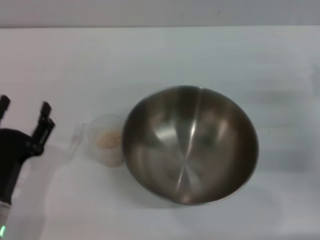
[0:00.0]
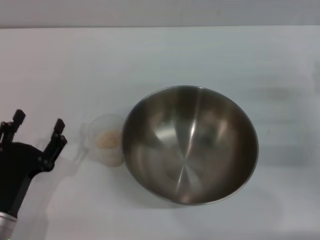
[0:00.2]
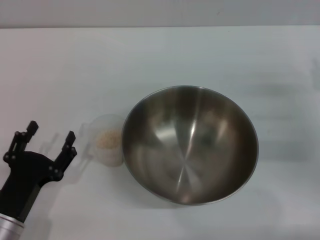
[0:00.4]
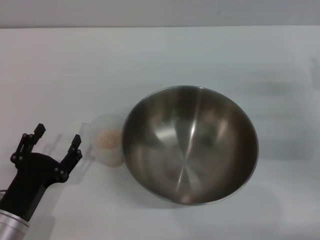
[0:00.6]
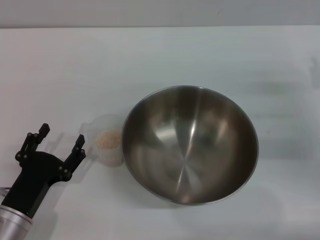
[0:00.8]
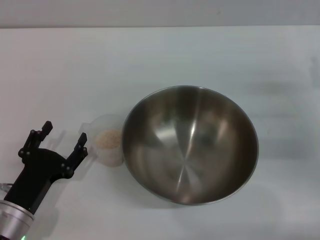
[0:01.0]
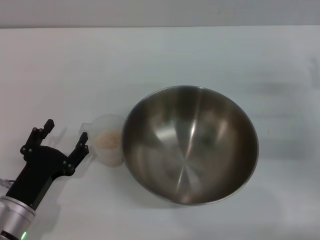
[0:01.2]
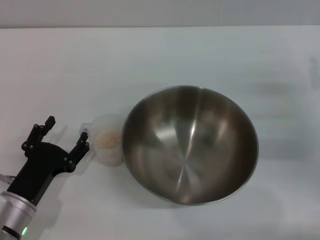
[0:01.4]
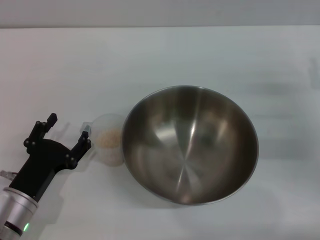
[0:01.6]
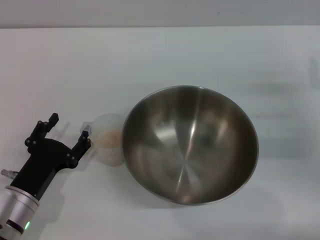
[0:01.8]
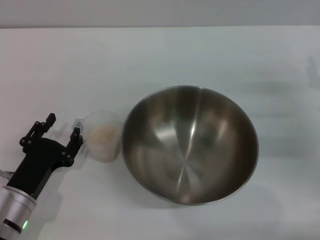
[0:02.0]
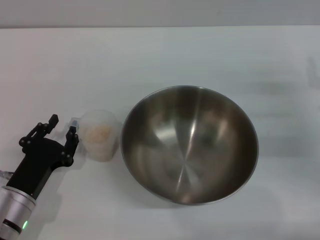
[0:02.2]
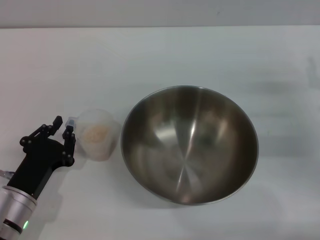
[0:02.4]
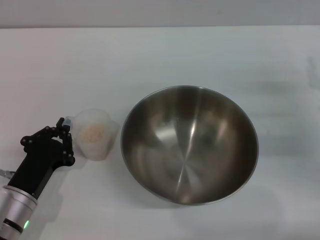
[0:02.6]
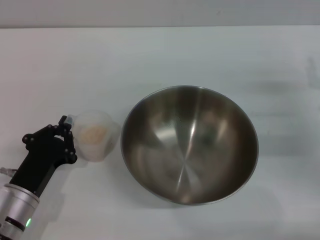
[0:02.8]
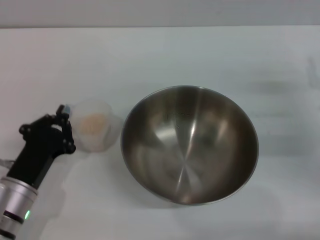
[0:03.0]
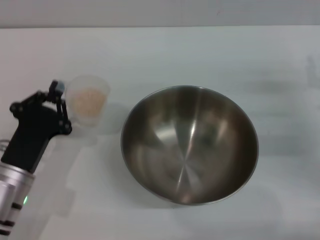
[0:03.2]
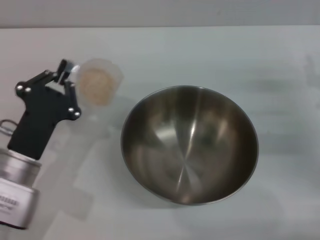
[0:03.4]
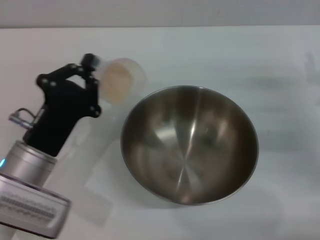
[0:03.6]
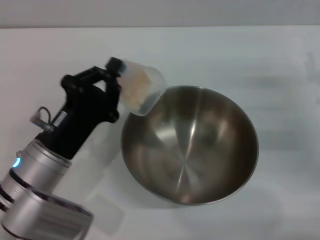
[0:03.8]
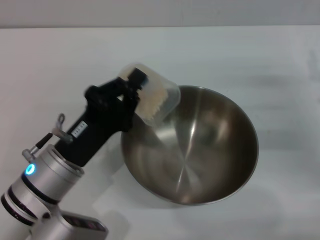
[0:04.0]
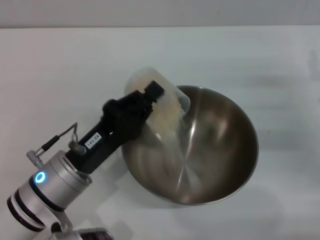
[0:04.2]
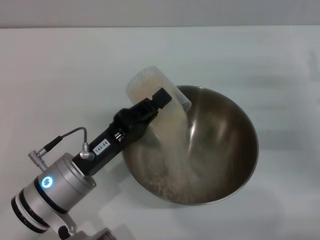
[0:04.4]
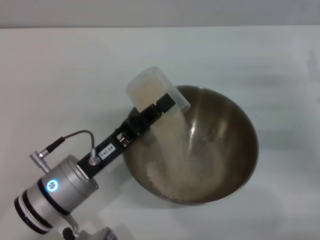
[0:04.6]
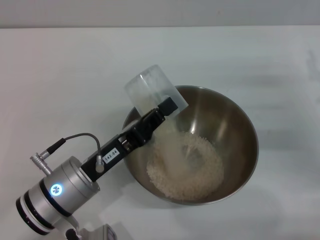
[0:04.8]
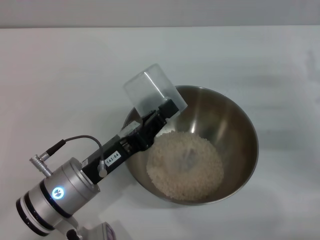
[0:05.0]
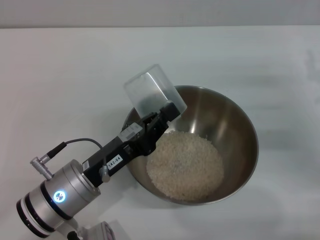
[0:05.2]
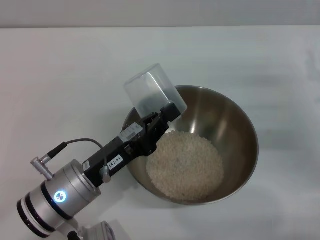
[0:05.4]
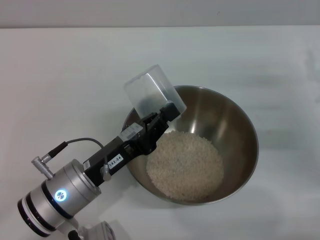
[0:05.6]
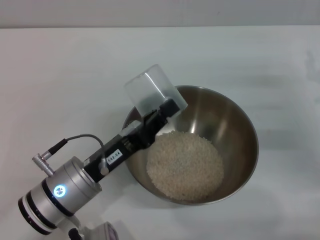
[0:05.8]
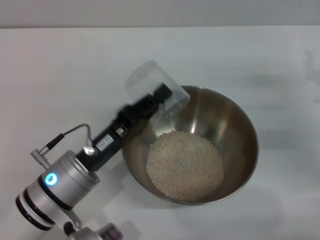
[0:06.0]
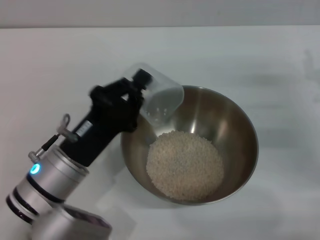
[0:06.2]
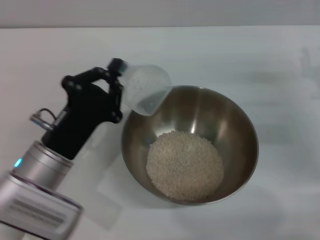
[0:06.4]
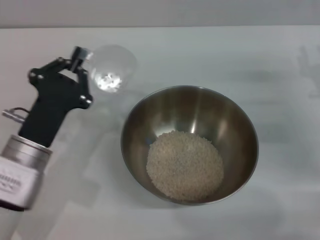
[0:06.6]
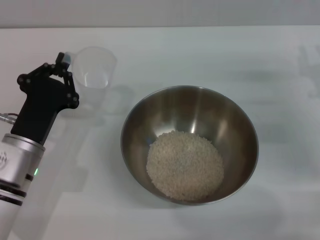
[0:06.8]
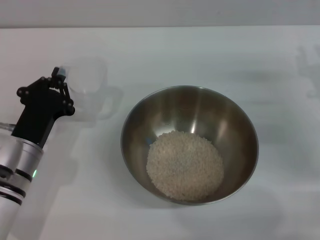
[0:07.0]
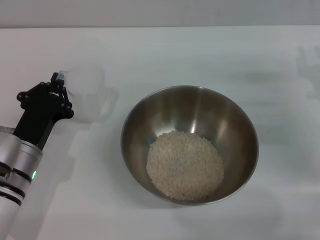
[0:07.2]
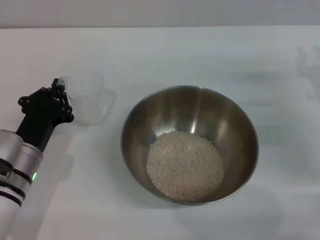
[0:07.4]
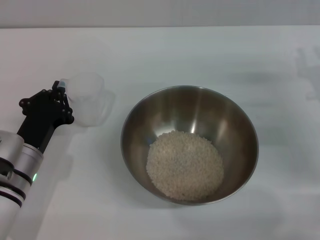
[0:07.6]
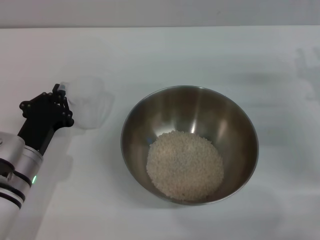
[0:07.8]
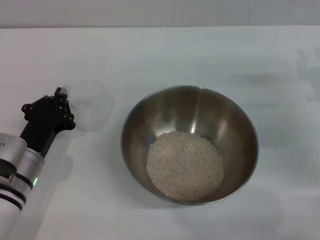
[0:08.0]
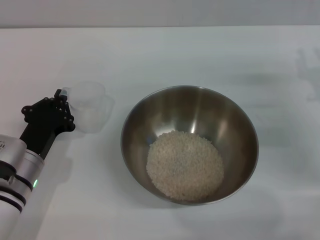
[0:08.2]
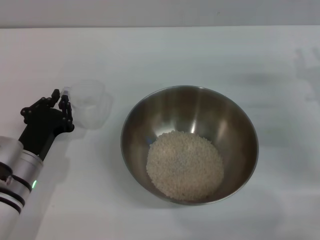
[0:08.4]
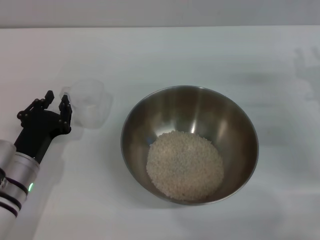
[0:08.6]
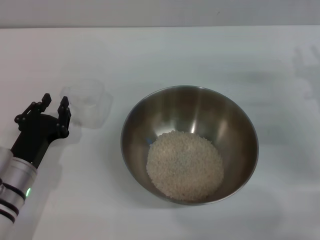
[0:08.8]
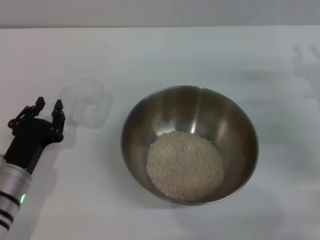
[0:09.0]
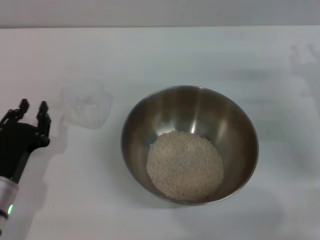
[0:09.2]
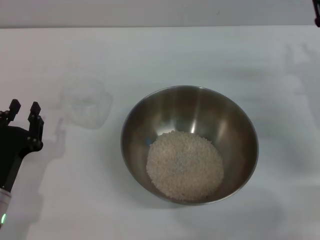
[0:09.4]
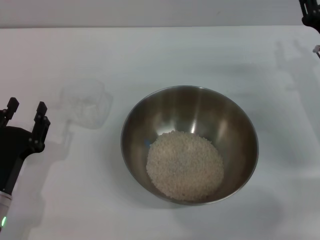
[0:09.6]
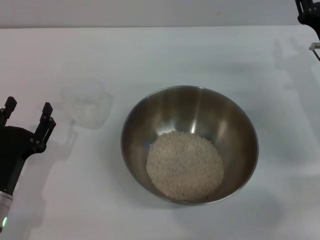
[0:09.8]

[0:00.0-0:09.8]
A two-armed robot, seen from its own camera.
Task of the whole recording: Place the bowl in the middle of the table with one hand and pour the rice from the grain cup into it with the other hand.
Step, 0:00.0 to 0:03.4: Pick up the cup with rice in it with the left gripper.
Step, 0:03.6 to 0:06.4: Pour the rice from the cup into the bowl with the left gripper.
Step, 0:06.8 to 0:08.8: Place the cup on the table with the left gripper.
0:00.0 to 0:01.4: The grippers stay close to where they were, moving slightly.
0:01.4 to 0:02.8: The left gripper closes.
0:02.8 to 0:04.2: The left gripper travels to the right and upward by roughly 10 cm.
0:05.6 to 0:07.0: The left gripper travels to the left by roughly 5 cm.
0:07.0 to 0:08.4: The grippers stay close to where they were, moving slightly.
0:08.4 to 0:09.8: The left gripper travels backward by about 5 cm, and opens up.
